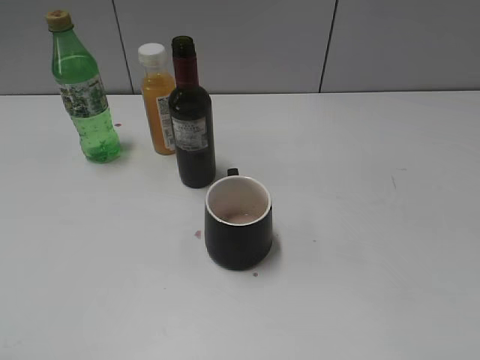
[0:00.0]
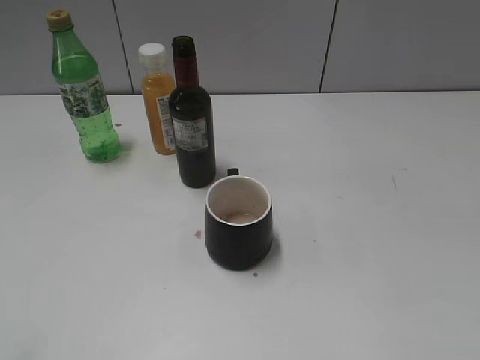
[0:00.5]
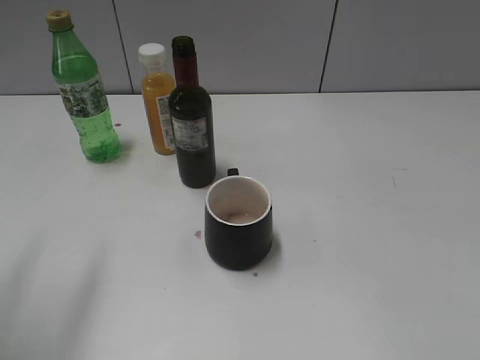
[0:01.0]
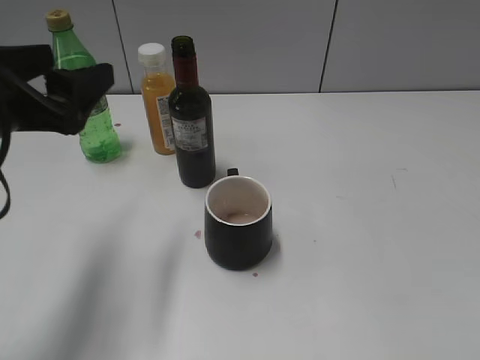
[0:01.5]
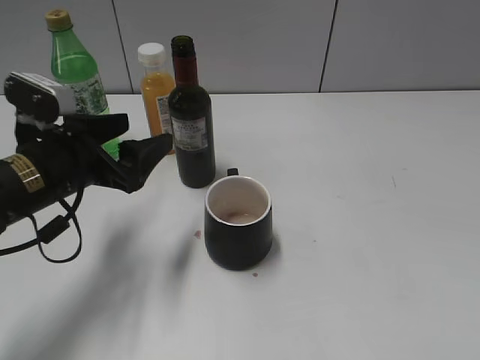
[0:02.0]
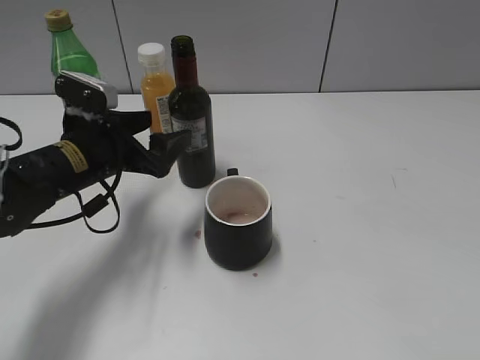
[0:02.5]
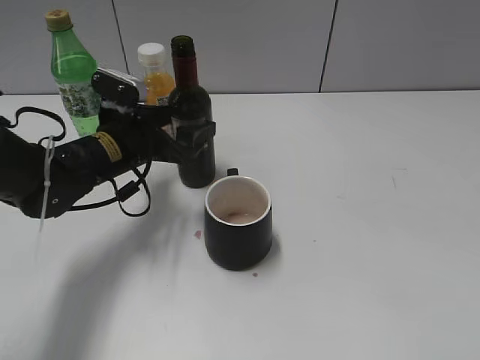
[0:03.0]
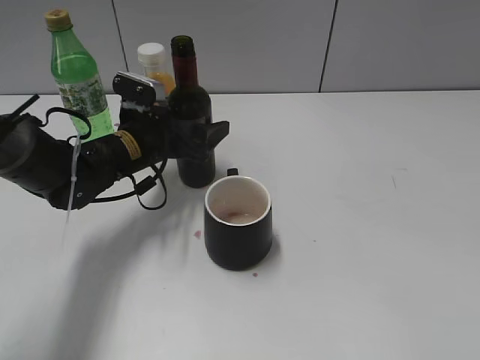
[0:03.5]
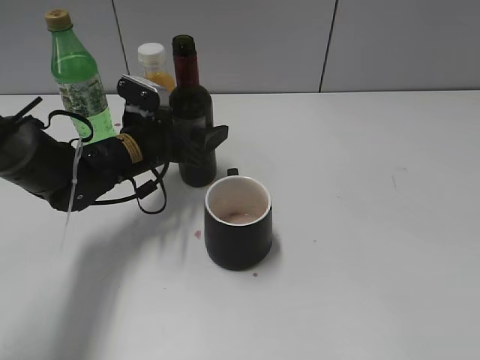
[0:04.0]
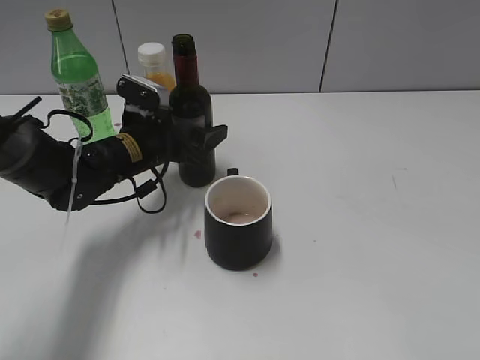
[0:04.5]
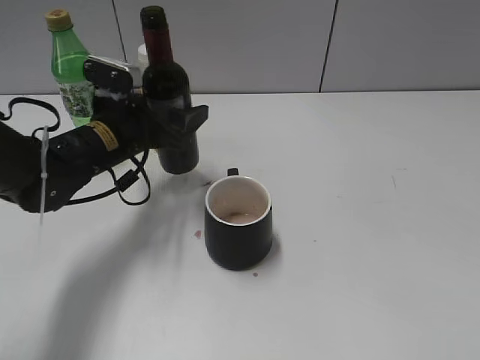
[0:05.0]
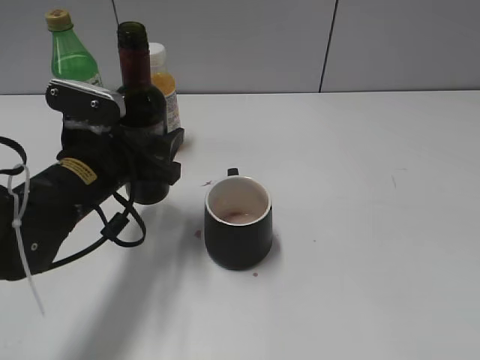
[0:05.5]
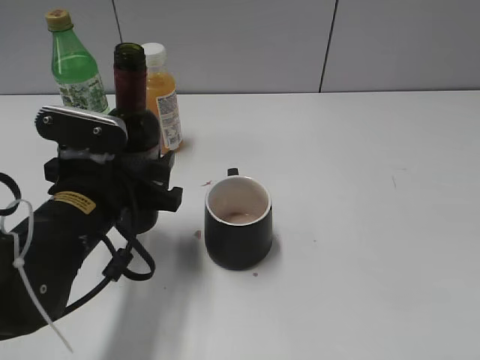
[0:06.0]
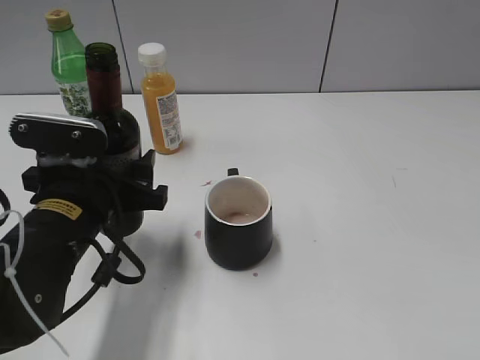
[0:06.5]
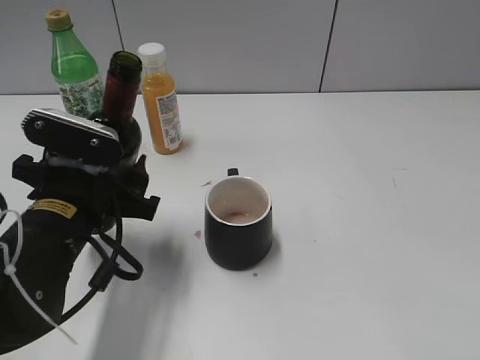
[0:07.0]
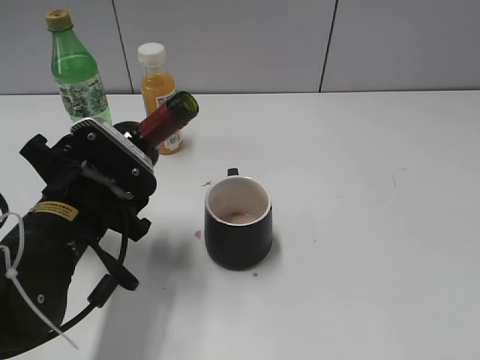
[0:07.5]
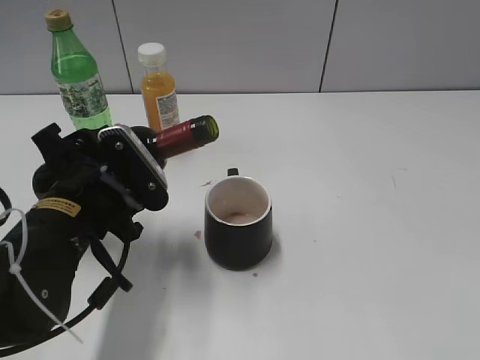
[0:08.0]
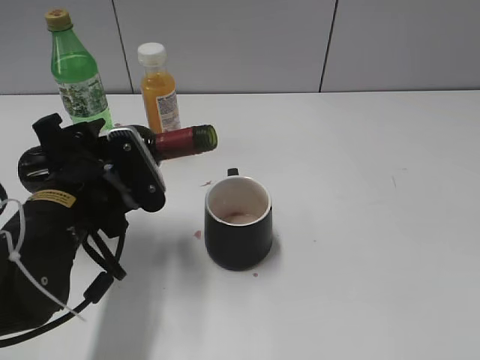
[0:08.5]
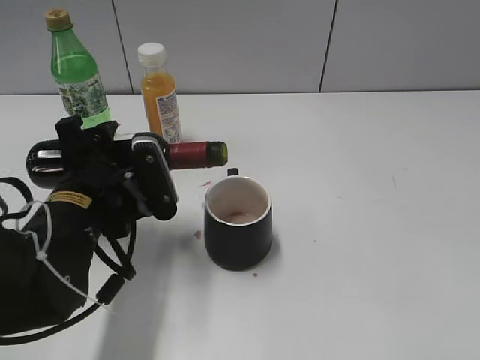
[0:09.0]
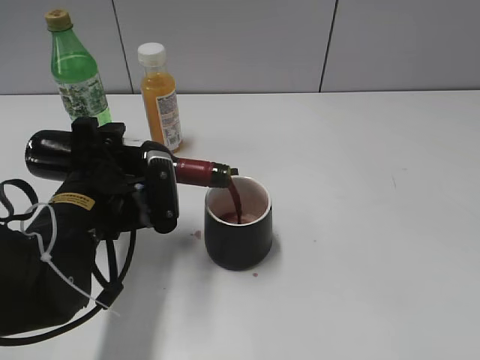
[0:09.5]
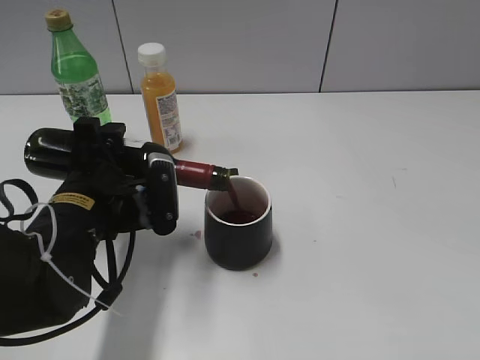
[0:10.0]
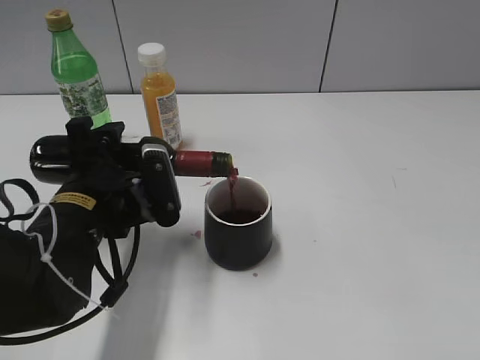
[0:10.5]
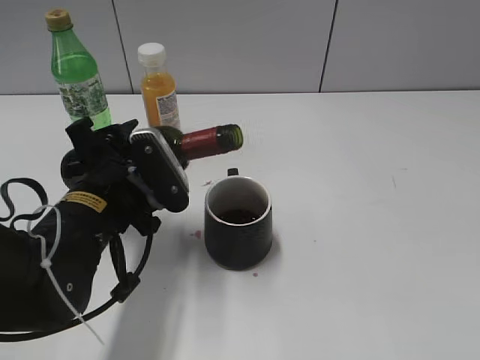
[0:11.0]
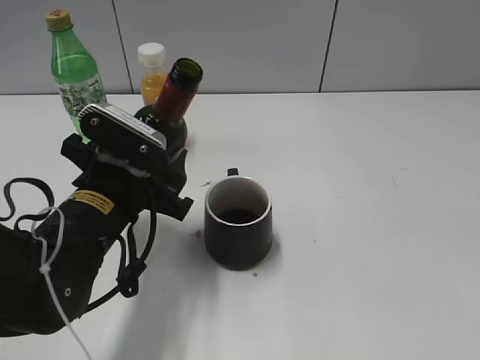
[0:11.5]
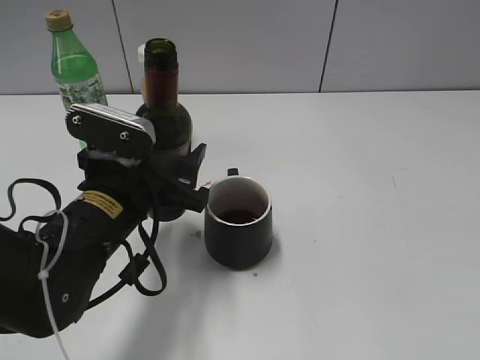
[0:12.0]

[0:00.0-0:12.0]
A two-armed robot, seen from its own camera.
Step, 0:00.0 to 0:04.0: Grasp the bottle with red wine with left gripper.
Step, 0:04.5 to 0:11.0: Pour the red wine from bottle to cup with left gripper.
0:00.0 to 0:02.0: The left gripper heads forward, covering roughly 30 cm, and opens up.
0:02.0 to 0:04.0: The left gripper moves forward, downward and to the right, some 15 cm, and closes.
0:04.0 to 0:06.0: The left gripper travels backward by about 15 cm.

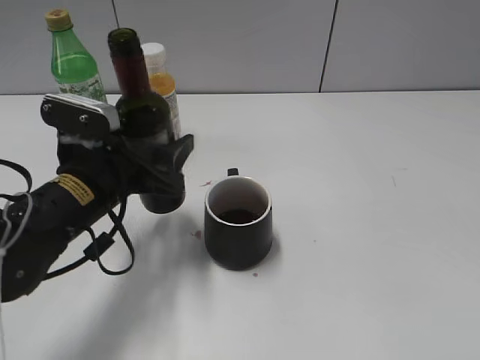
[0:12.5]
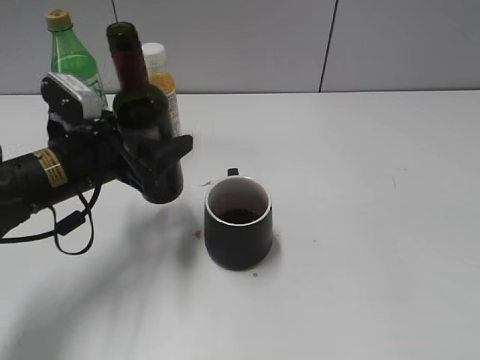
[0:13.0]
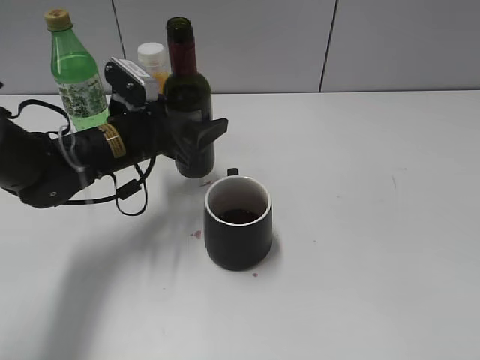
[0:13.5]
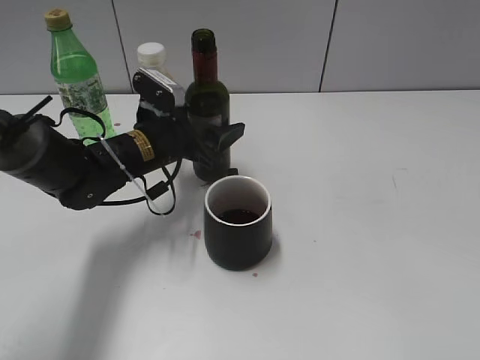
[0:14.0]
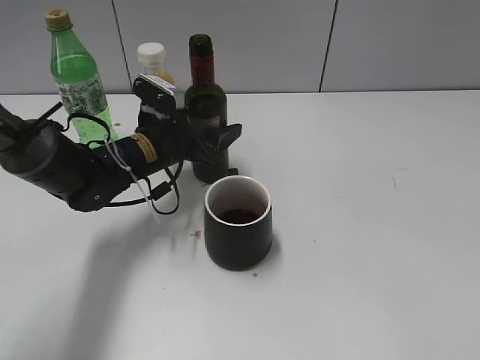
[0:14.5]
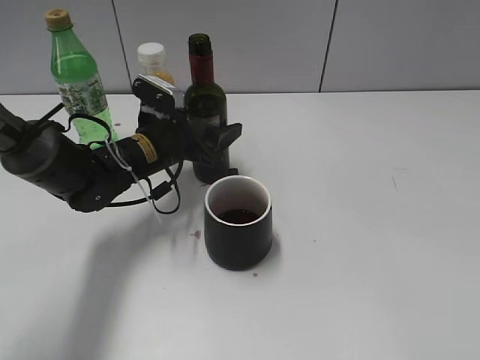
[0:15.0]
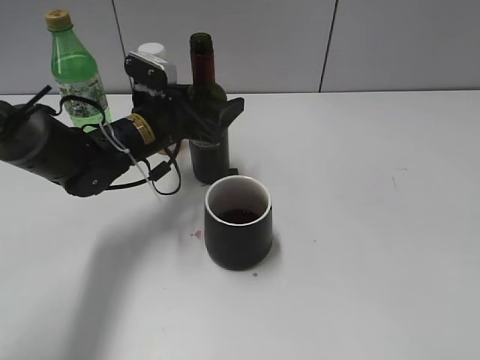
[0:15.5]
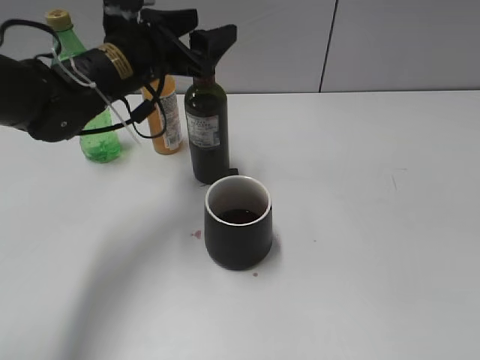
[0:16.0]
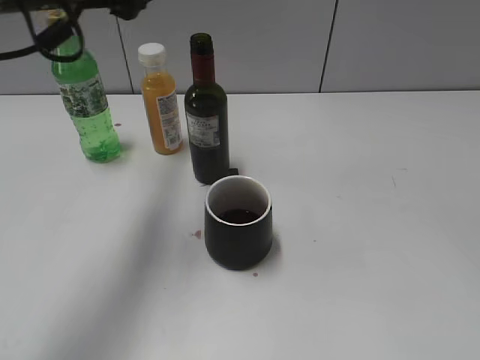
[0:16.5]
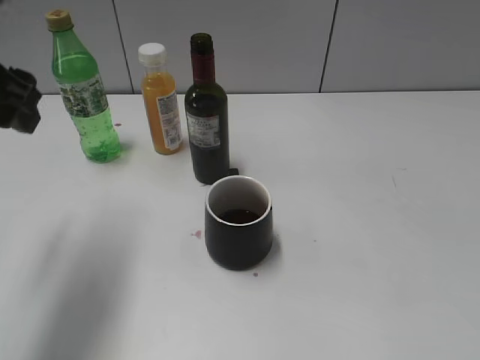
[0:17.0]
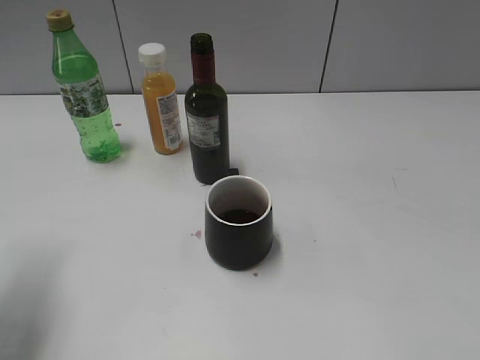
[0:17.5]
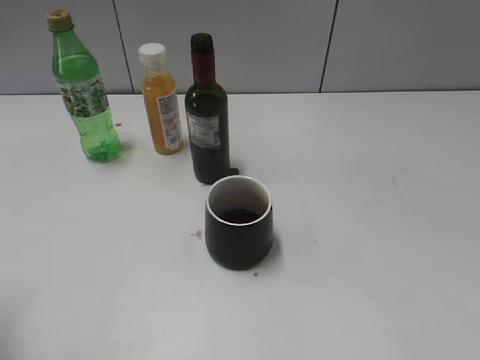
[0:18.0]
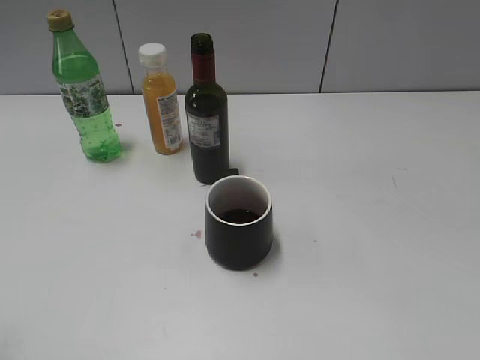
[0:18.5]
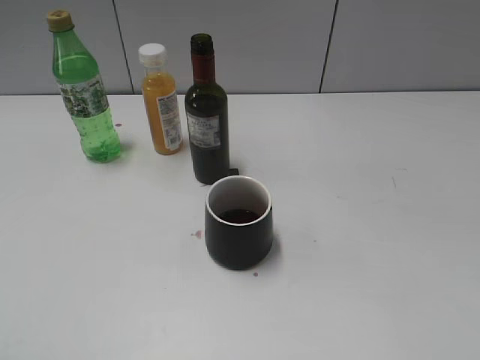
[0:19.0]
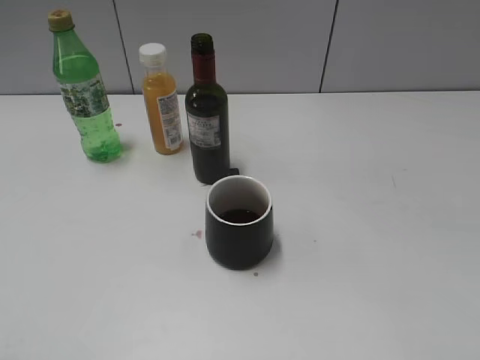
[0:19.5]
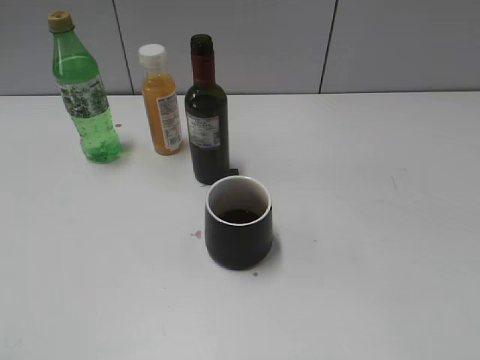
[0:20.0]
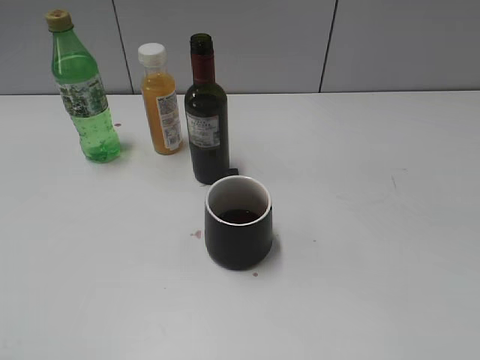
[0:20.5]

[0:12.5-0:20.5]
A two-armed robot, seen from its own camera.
Step, 0:12.5 to 0:15.0: Place the red wine bottle on the table with left gripper.
0:12.5 to 0:14.5: The left gripper is displaced forward by some 15 cm.
0:14.5 to 0:16.5: The left gripper is displaced upward by approximately 20 cm.
0:16.5 to 0:18.5: The left gripper moves backward and to the left, about 25 cm.
